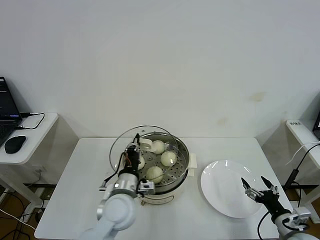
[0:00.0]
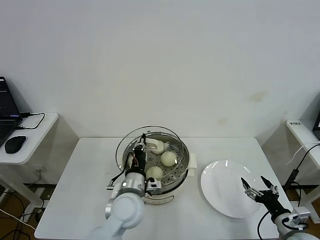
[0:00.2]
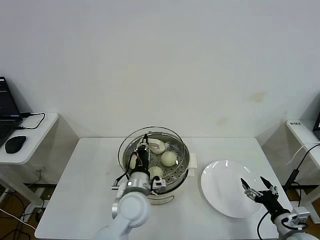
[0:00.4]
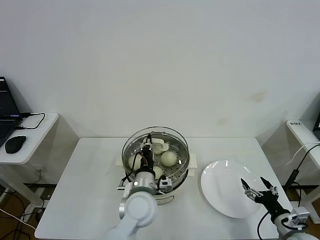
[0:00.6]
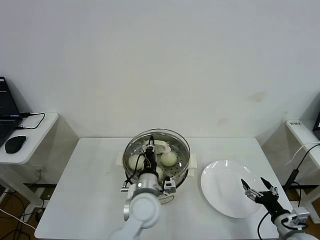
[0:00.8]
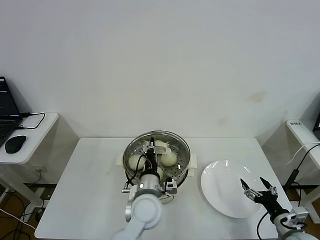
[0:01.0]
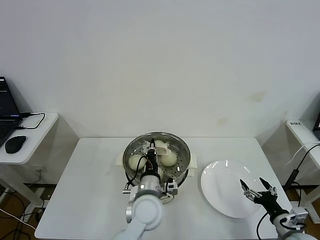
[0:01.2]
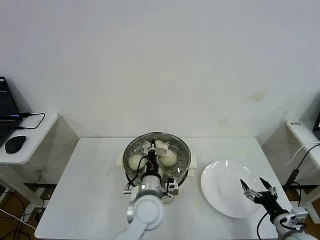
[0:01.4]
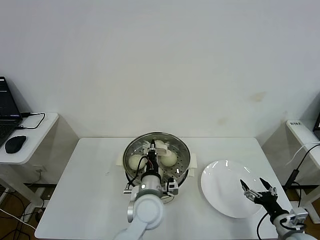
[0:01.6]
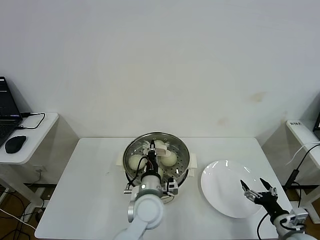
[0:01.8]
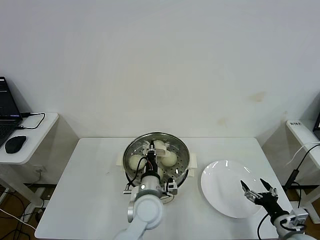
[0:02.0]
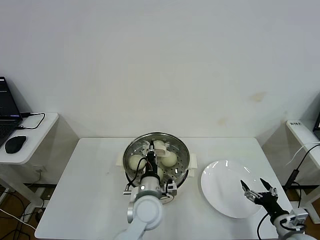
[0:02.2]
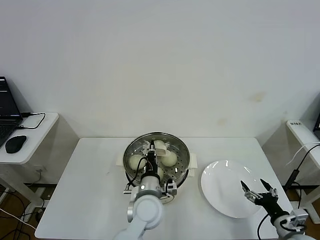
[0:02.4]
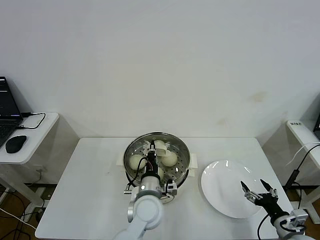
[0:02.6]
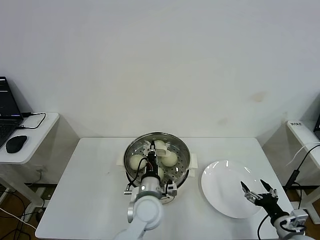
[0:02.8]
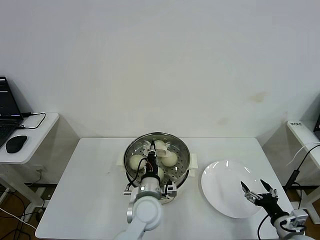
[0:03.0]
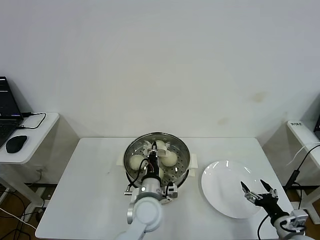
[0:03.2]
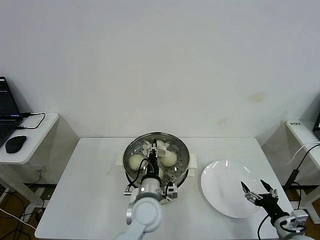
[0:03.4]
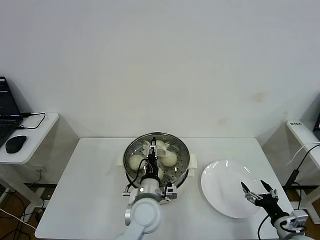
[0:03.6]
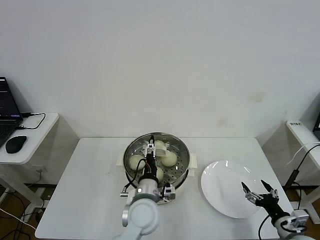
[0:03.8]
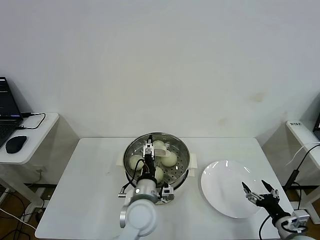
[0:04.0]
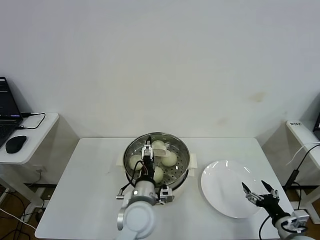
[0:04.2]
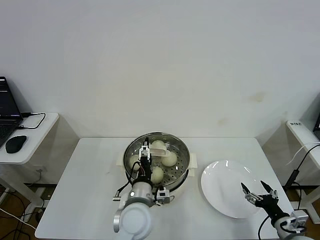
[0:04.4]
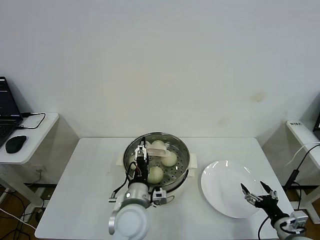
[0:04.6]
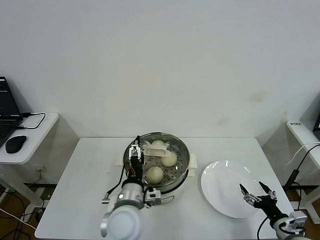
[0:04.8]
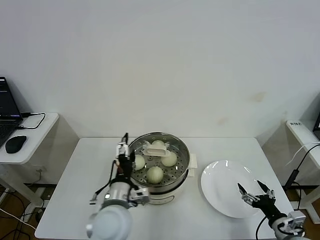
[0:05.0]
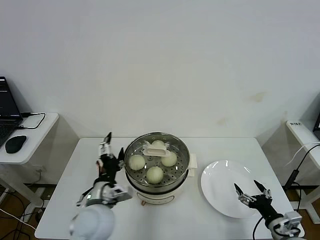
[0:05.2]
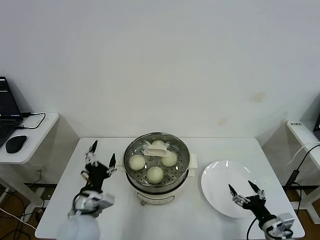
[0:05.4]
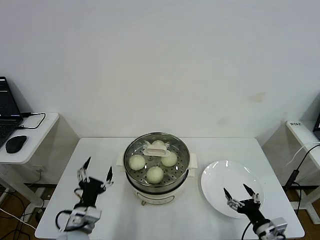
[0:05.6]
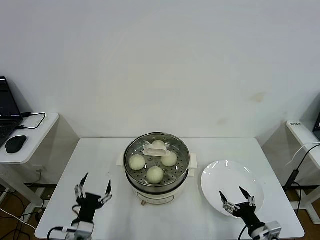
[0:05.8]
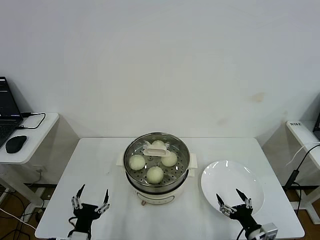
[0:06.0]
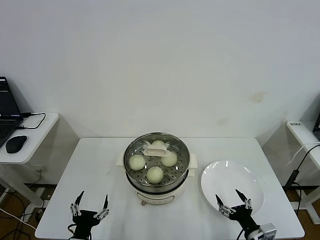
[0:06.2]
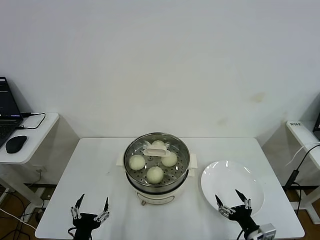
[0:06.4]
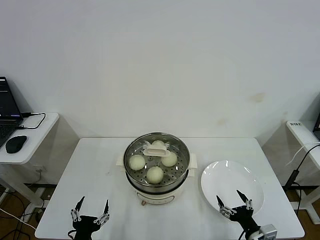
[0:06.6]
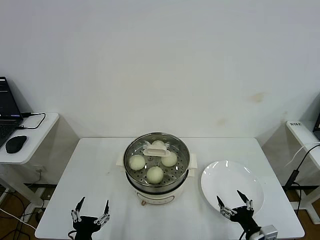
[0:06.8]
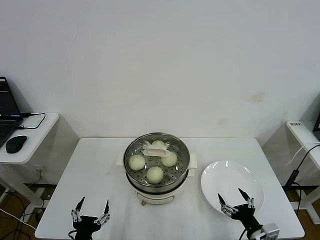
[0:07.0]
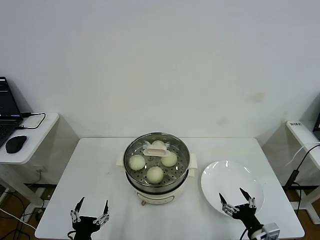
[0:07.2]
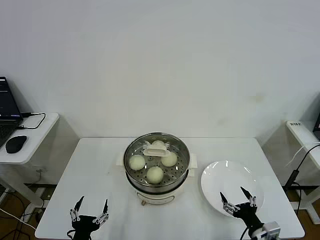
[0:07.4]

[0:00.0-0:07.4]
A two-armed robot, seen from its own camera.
Step, 0:00.0 to 0:03.4: Place the pot lid on the steamer with left gripper.
0:00.0 to 0:01.4: The left gripper is displaced to the right by approximately 10 cm.
0:01.4 to 0:03.0: There are only small adjustments of the grippers.
0:03.0 to 0:04.4: The left gripper opens its fingers.
0:04.4 to 0:06.0: The right gripper is displaced to the left by roughly 10 cm. Meanwhile the left gripper is displaced to the left and backward by about 20 cm.
0:06.0 to 0:07.4: The grippers move only a little.

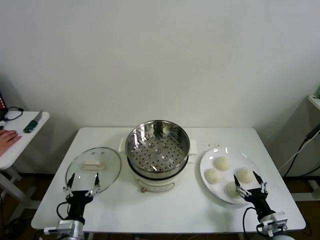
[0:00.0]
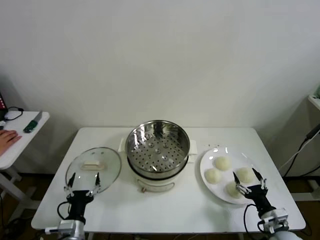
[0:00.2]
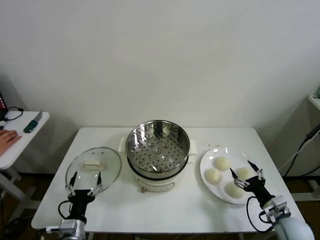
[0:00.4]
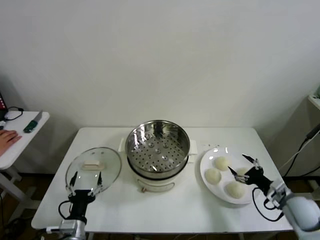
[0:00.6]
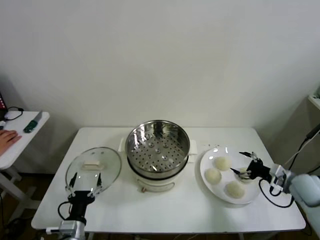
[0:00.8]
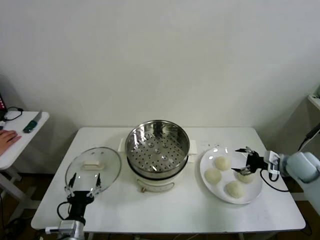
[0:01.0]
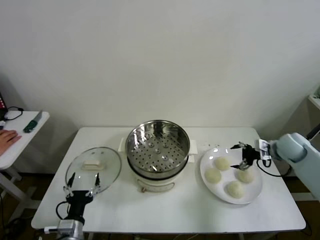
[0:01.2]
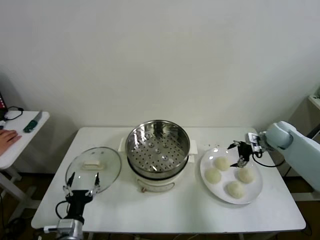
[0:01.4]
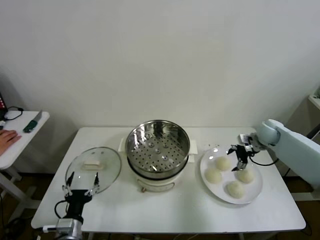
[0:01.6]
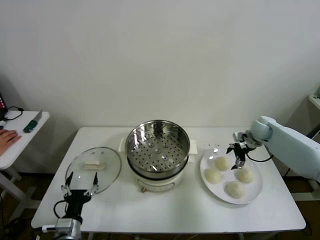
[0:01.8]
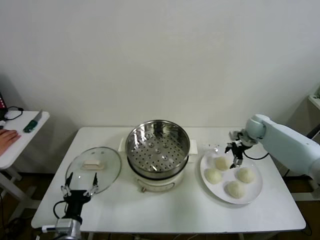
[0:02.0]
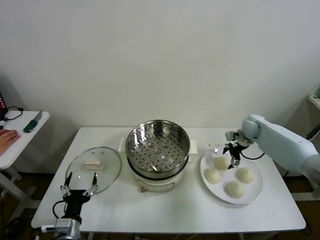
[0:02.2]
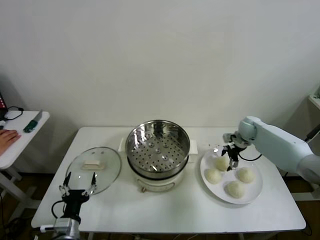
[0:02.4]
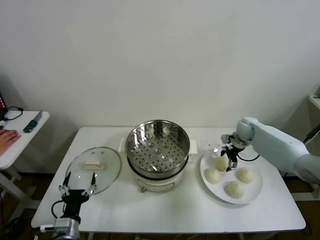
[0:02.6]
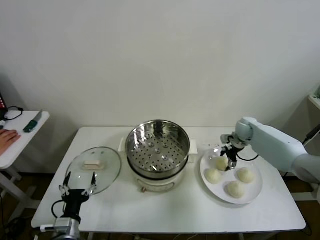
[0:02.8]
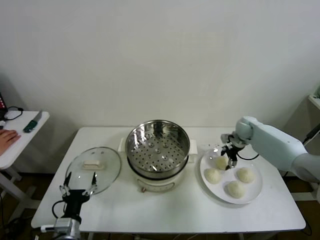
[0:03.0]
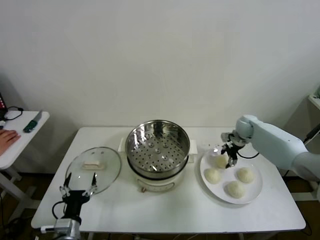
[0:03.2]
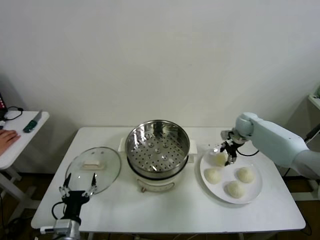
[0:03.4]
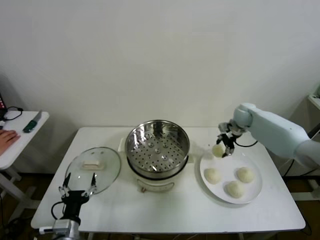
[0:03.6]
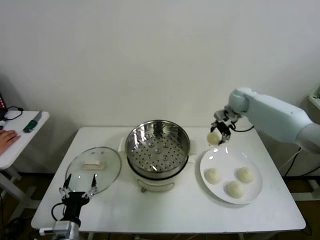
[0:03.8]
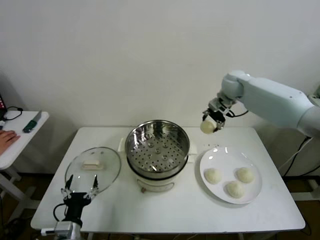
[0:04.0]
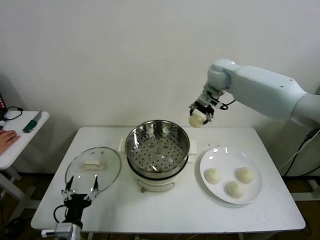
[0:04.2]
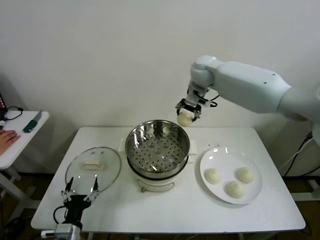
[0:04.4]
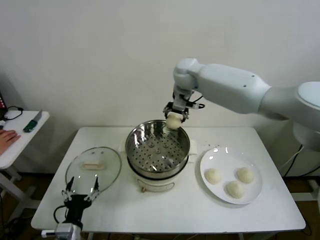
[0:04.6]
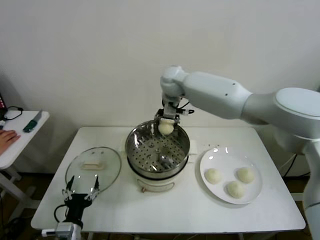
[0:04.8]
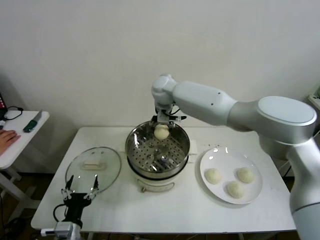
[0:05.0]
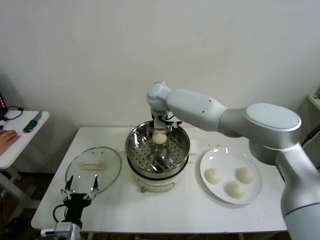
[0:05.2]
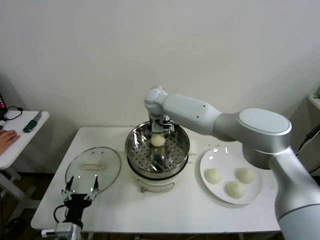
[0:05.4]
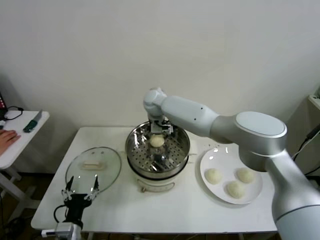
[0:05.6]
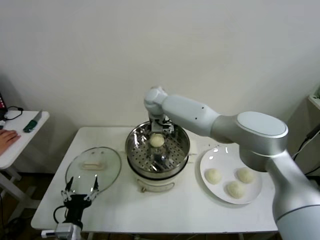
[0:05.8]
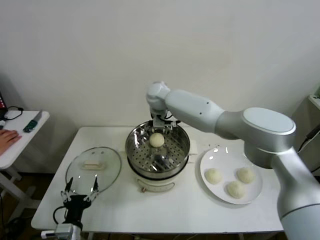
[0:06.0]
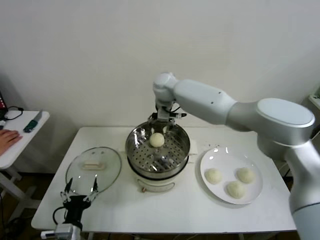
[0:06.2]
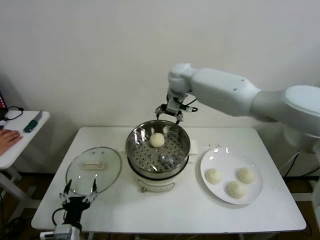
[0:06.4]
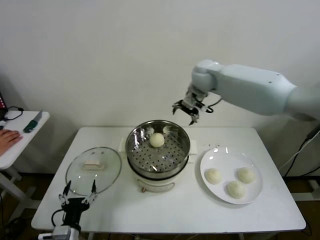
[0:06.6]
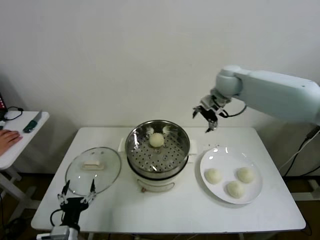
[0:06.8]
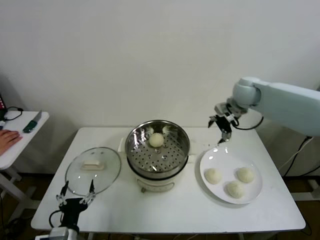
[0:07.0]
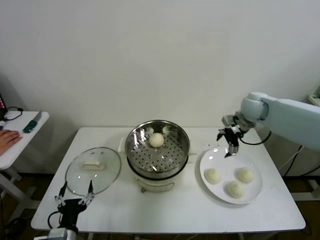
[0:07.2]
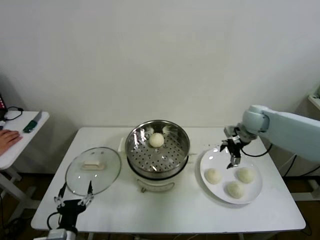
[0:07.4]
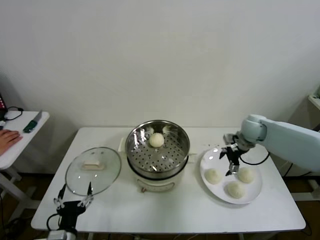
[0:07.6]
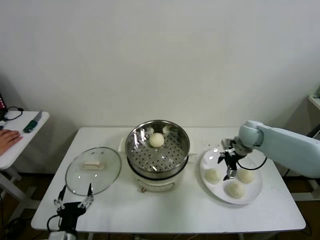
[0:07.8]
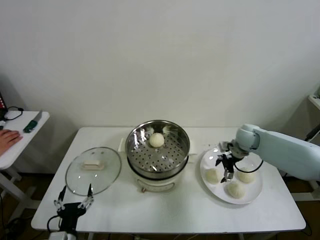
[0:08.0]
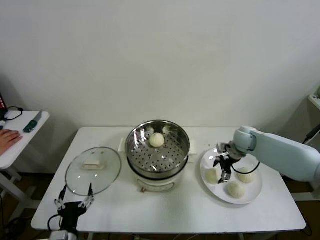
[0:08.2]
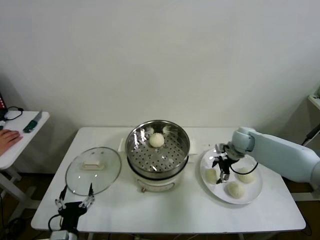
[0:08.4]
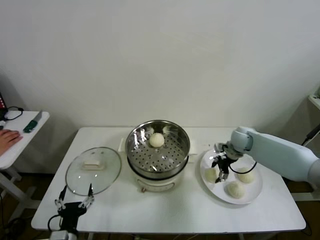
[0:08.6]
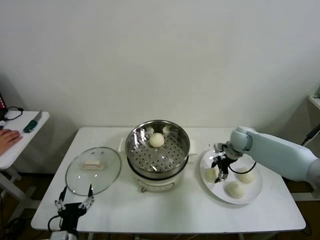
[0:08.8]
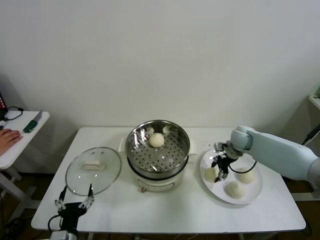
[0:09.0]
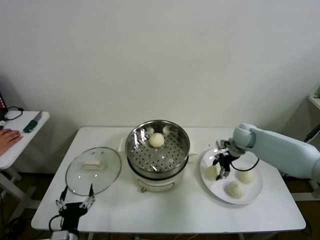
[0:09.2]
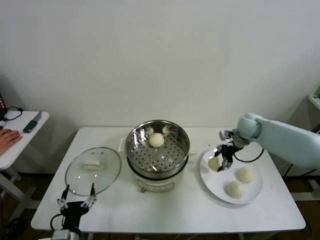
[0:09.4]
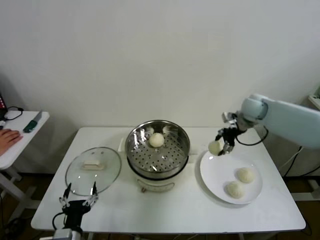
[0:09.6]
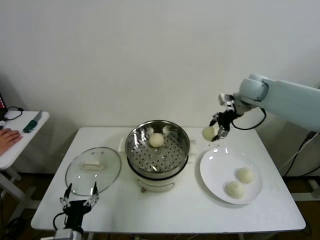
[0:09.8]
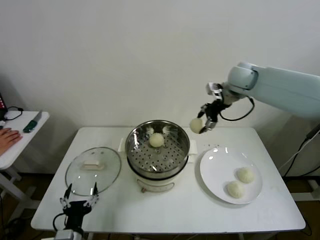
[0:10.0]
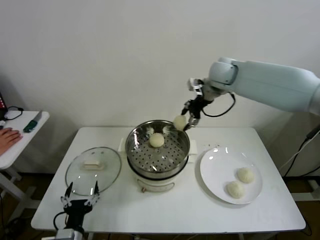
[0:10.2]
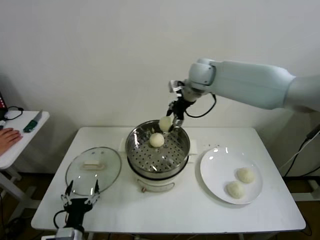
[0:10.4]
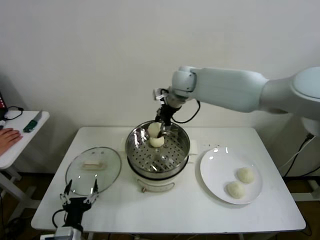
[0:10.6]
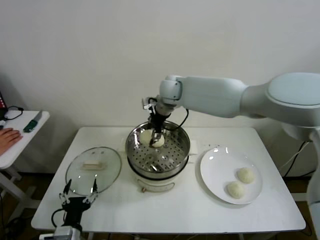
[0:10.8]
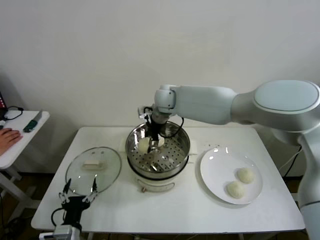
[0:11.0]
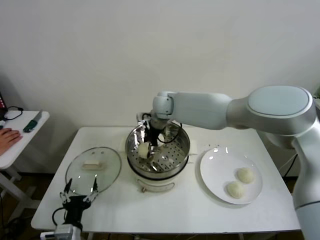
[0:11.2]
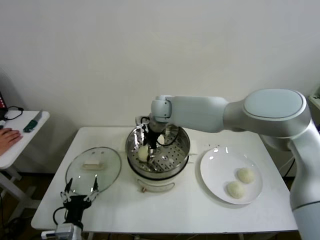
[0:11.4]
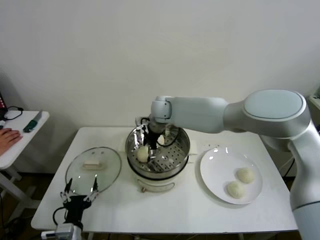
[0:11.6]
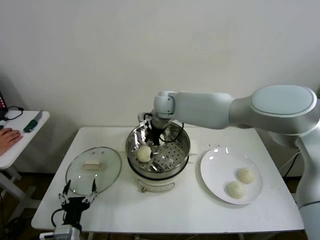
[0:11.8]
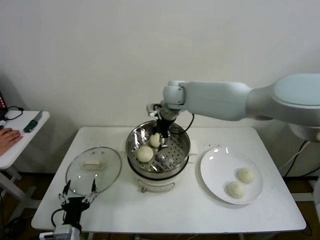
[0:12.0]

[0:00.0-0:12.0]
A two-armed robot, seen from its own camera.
Step, 0:00.0 to 0:02.8: Grasp the baozi in the plate with right gripper.
Step, 0:03.0 to 0:05.6: Place the baozi on the steamer with right gripper.
Step, 0:05.8 to 0:08.6: Grasp the baozi in the plate with right gripper.
Step, 0:08.8 to 0:11.4: Place the baozi on the steamer with right gripper.
0:01.6 to 0:03.0: The right gripper moves roughly 5 cm, and closes up.
0:03.0 to 0:04.4: The right gripper moves upward and to the left, about 35 cm.
0:04.4 to 0:06.0: The right gripper travels to the left and downward by roughly 15 cm, and opens.
0:06.0 to 0:07.6: The right gripper shifts some 35 cm to the right.
0:07.6 to 0:09.0: The right gripper heads downward, covering roughly 5 cm, and closes up.
0:09.0 to 0:10.4: The right gripper heads upward and to the left, covering about 30 cm.
0:10.4 to 0:12.0: The right gripper opens its fingers.

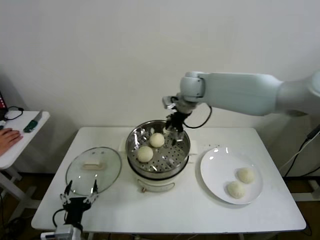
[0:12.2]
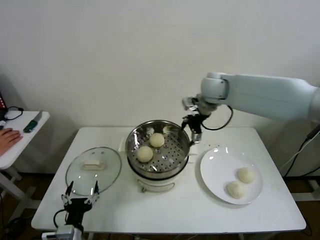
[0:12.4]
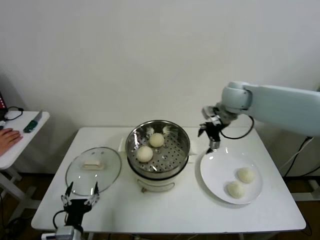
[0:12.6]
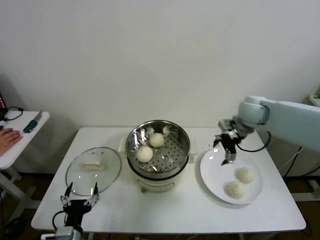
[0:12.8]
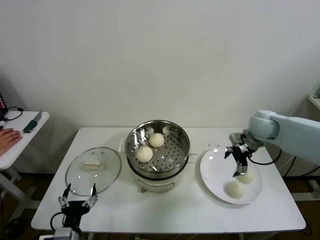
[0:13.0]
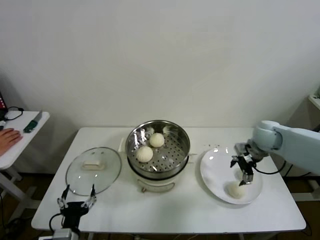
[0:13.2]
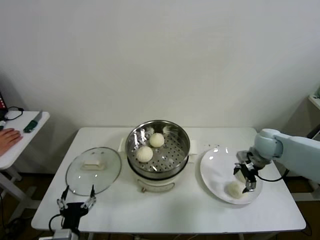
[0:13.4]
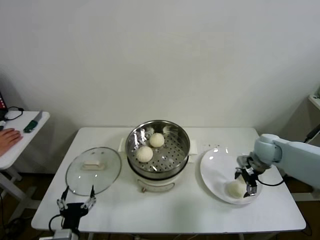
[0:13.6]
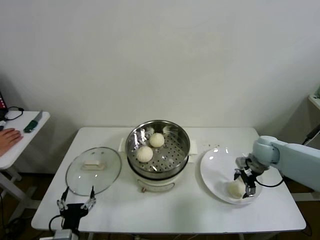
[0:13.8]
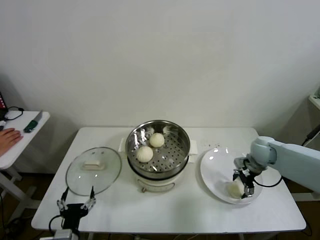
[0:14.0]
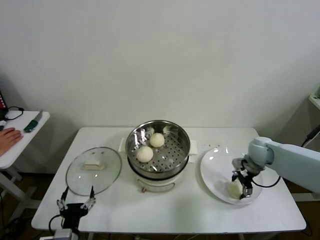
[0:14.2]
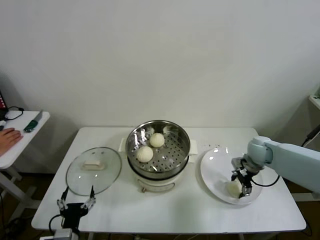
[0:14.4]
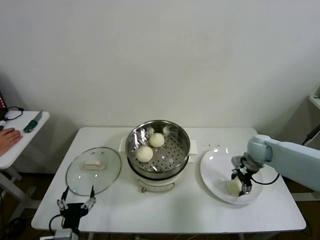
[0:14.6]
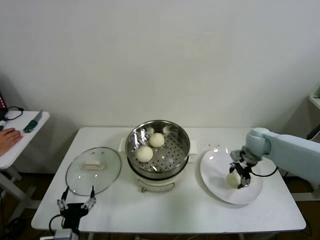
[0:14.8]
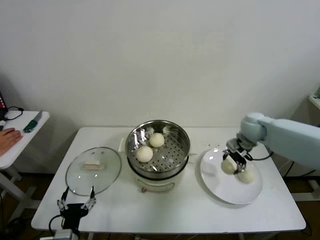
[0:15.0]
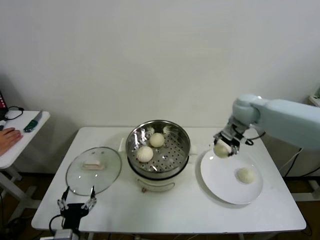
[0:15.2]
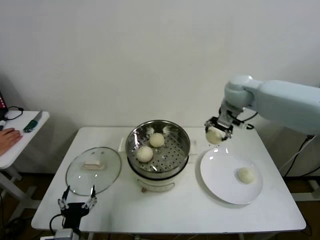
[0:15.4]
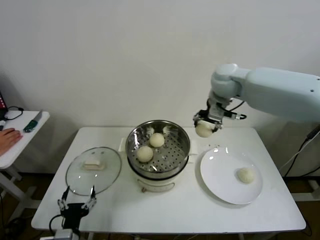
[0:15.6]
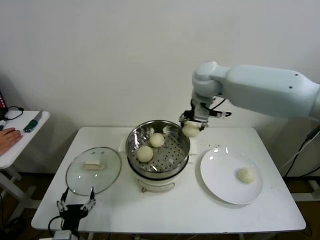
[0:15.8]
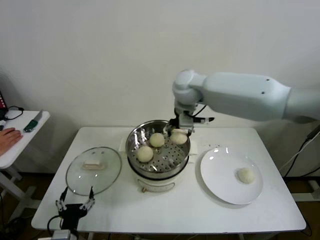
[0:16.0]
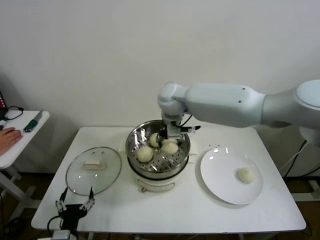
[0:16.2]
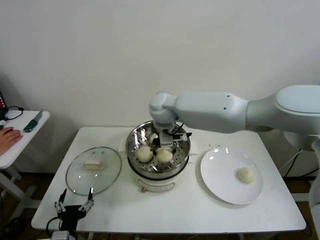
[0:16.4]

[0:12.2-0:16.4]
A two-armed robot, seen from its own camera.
Step, 0:12.2 to 0:14.0: Grasp the baozi in the plate with right gripper.
0:12.2 to 0:13.6: The right gripper goes roughly 35 cm to the right, downward and backward.
0:13.6 to 0:15.0: The right gripper is displaced upward, forward and to the left by approximately 10 cm, and closes.
0:15.0 to 0:16.4: The right gripper goes roughly 30 cm to the left.
